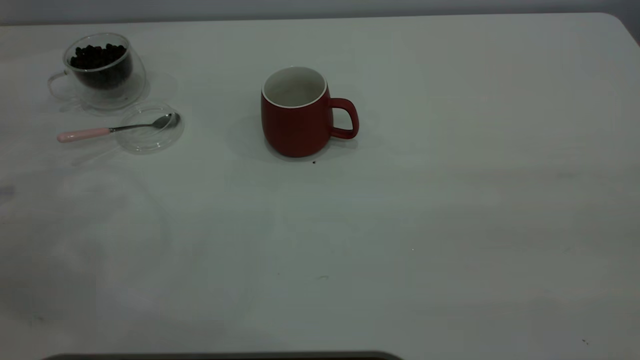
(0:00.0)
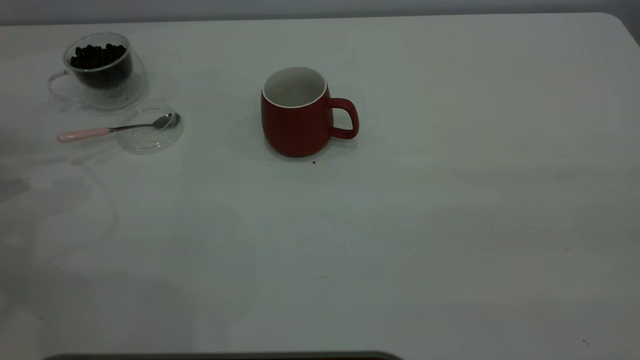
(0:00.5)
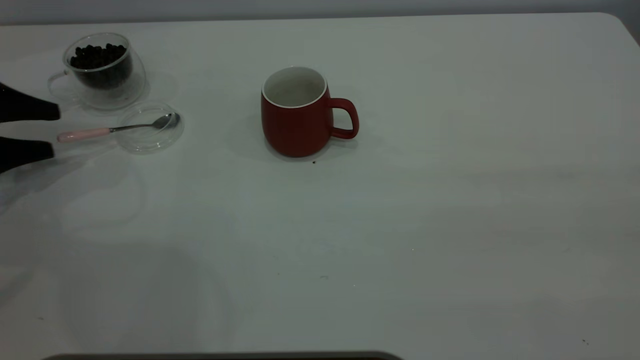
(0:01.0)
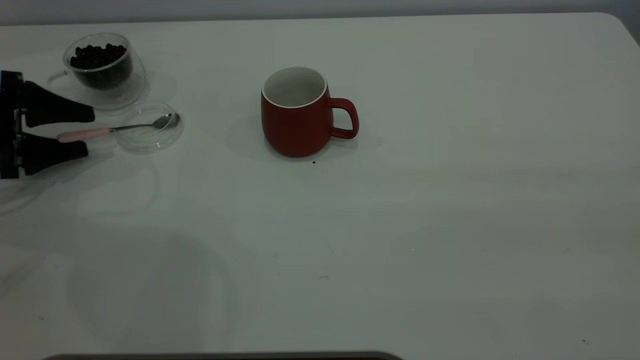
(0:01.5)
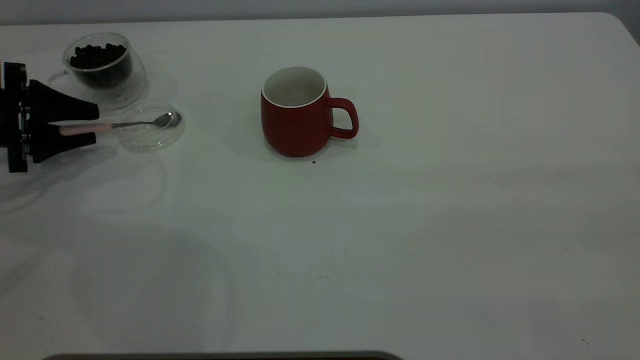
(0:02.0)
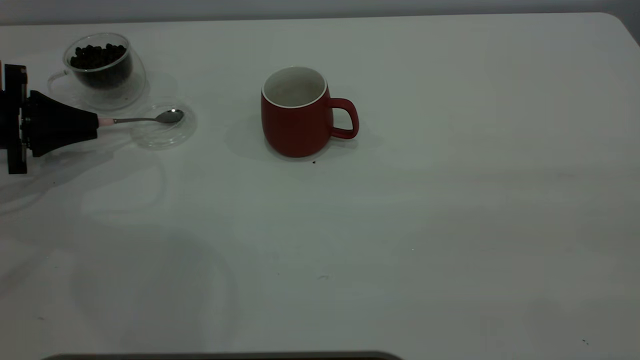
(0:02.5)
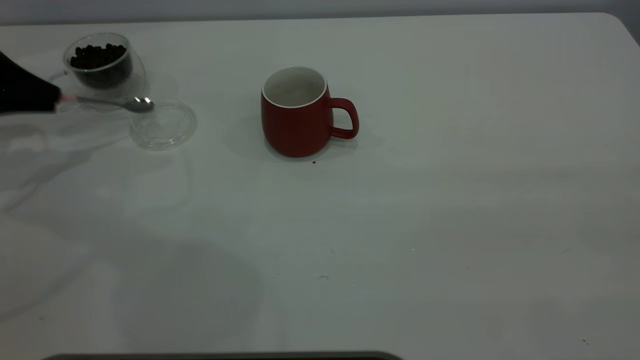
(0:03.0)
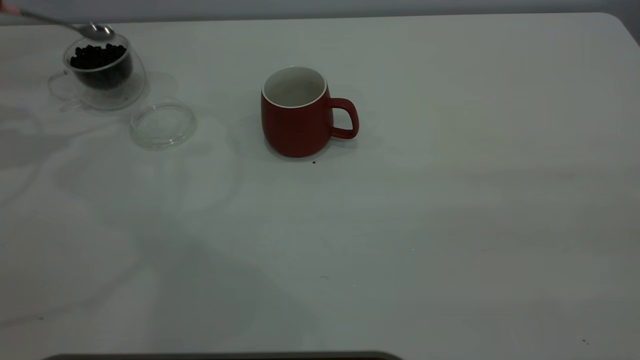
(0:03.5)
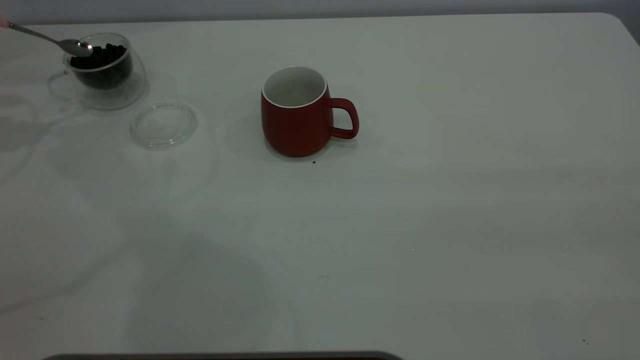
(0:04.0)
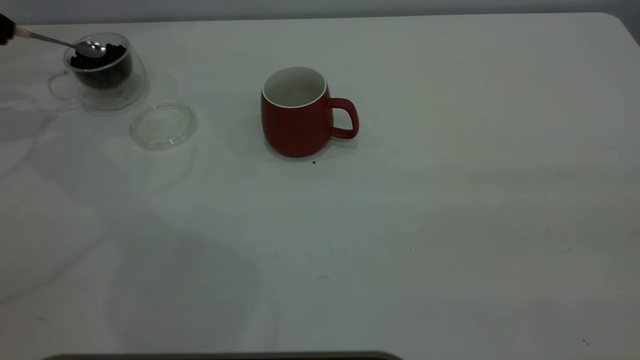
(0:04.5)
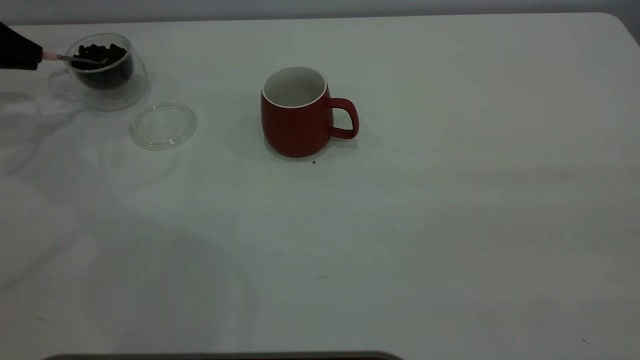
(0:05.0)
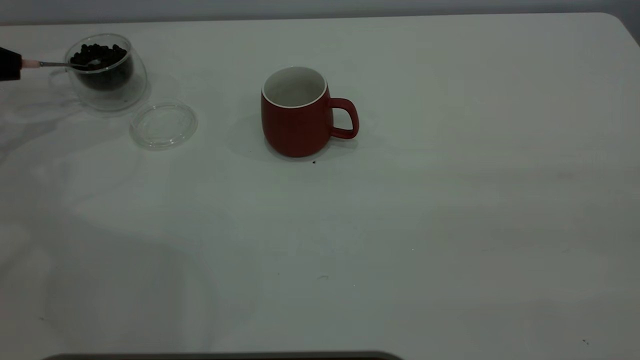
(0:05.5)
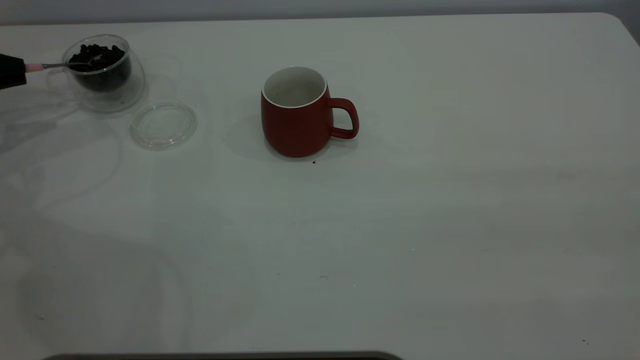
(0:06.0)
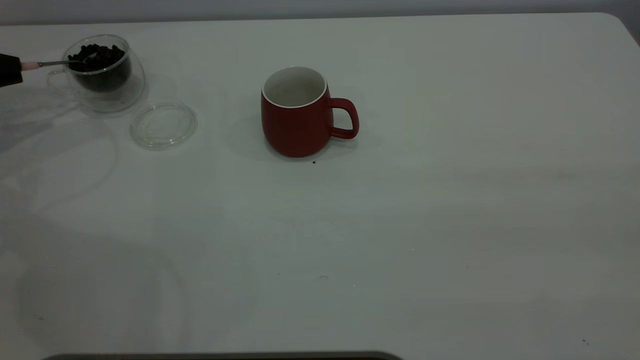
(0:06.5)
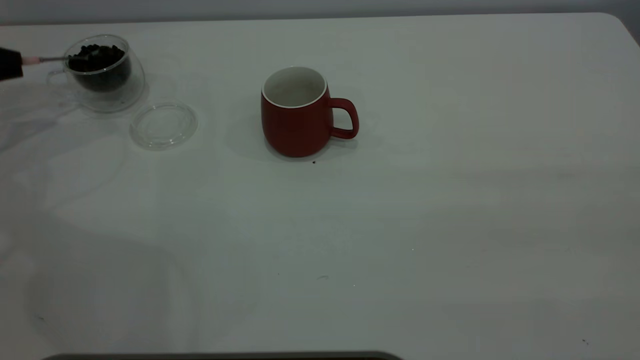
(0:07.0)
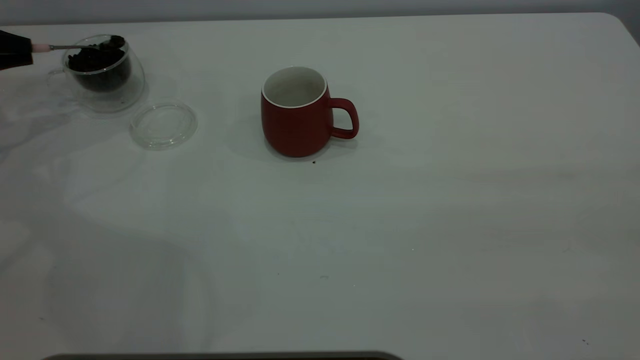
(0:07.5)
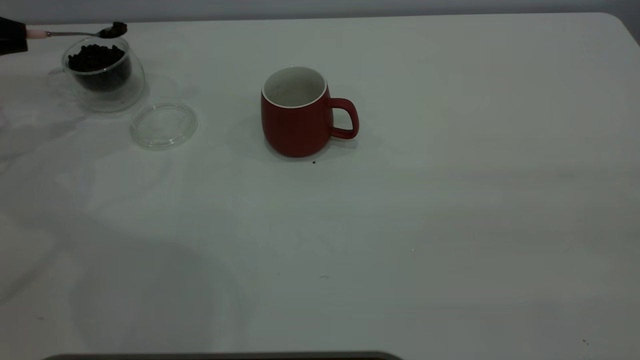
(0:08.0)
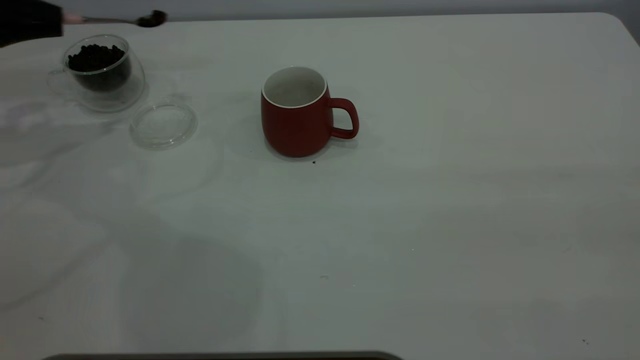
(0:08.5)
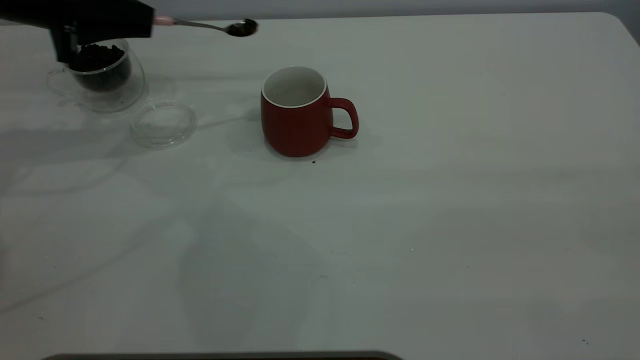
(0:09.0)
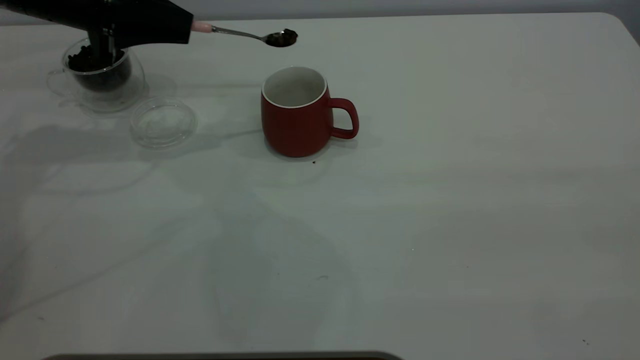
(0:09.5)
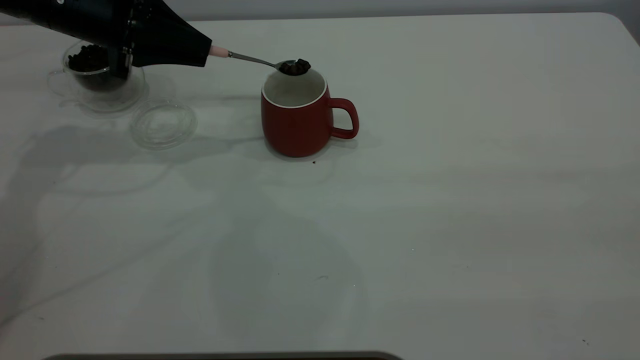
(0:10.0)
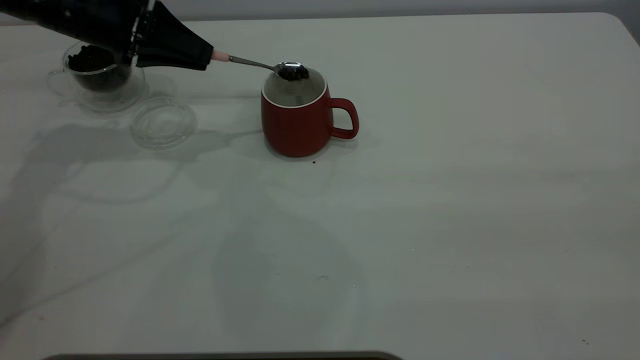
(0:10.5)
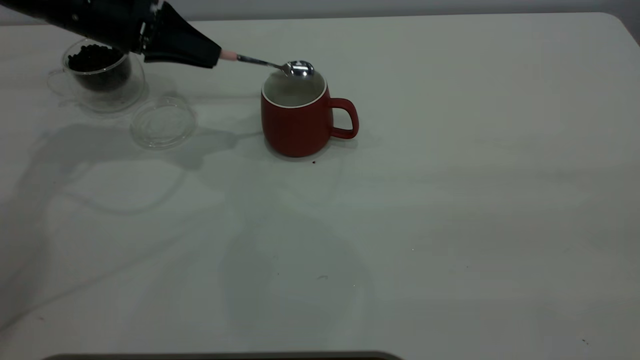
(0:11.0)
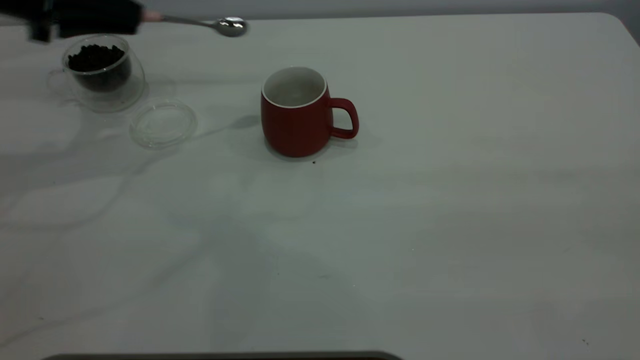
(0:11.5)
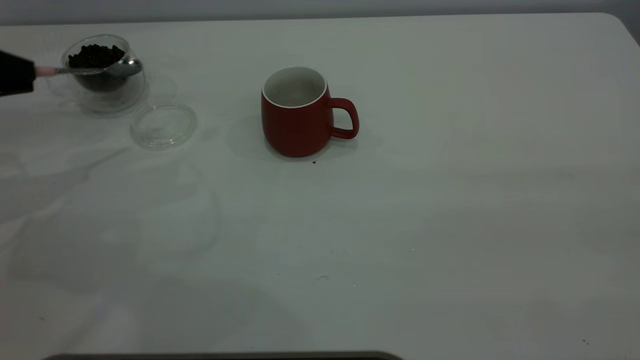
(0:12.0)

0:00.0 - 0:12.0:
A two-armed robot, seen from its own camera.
Task of the whole recording: the right gripper place the red cup in the center of the table, the left gripper take the pink spoon from the cup lid and scoop out the coffee beans from the coffee cup and put them into the red cup, the left gripper put the spoon back into the cup lid.
Step, 0:00.0 - 0:03.0: Pick up the spoon.
Step, 0:03.5 - 0:11.0: Scoop a spoonful of beans into the cup.
0:00.0 - 0:02.0: The left gripper moves downward, forward and to the right, some 15 cm, and closes up.
0:02.0 - 0:04.0: The left gripper goes about 15 cm upward, and closes up.
0:04.0 - 0:06.0: The left gripper heads downward, covering some 15 cm.
0:06.0 - 0:08.0: The left gripper heads upward, covering approximately 5 cm.
0:08.0 - 0:10.0: The left gripper travels to the right by about 20 cm.
0:10.0 - 0:12.0: The left gripper is displaced to the left and backward by some 20 cm.

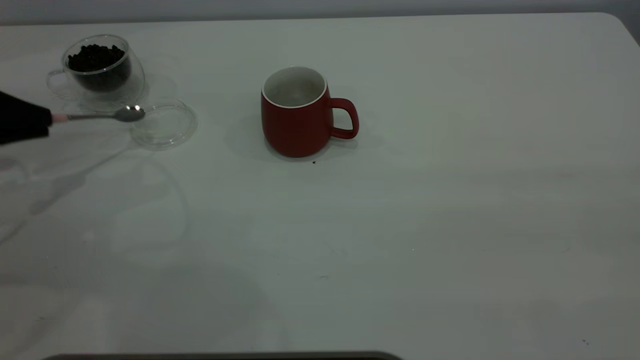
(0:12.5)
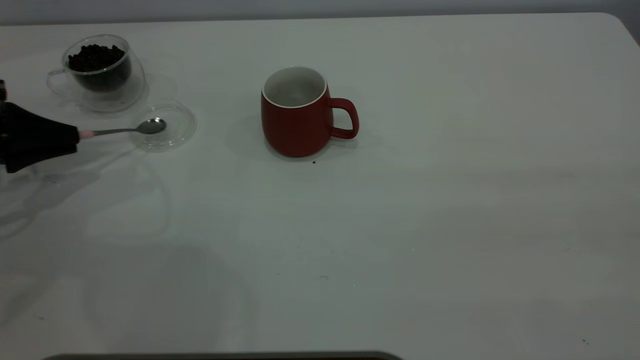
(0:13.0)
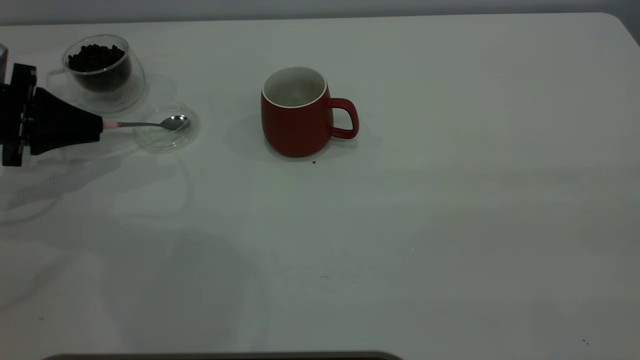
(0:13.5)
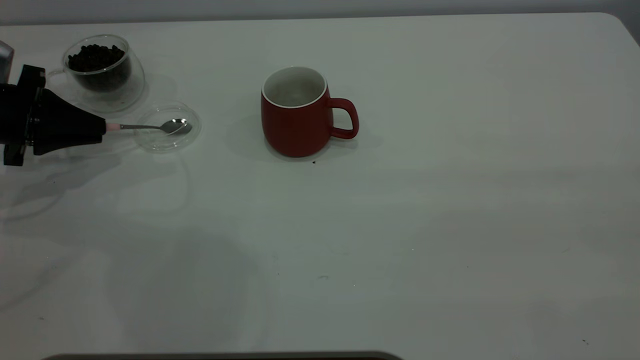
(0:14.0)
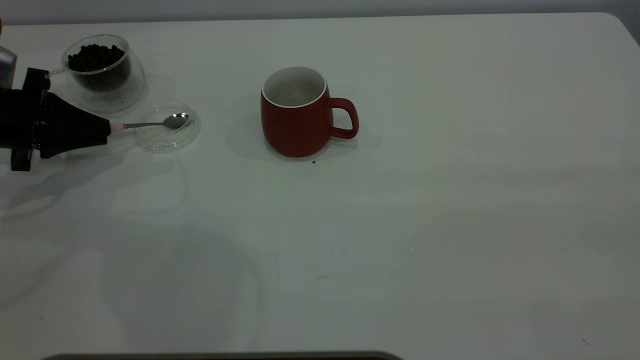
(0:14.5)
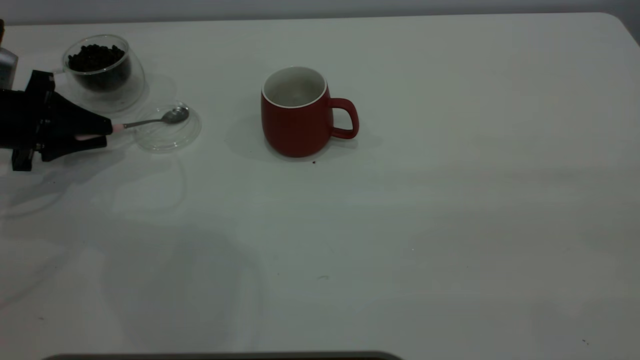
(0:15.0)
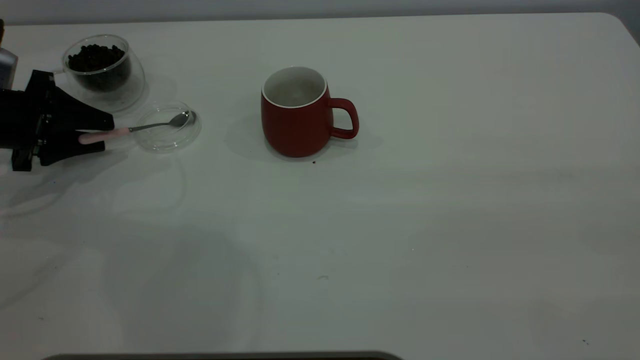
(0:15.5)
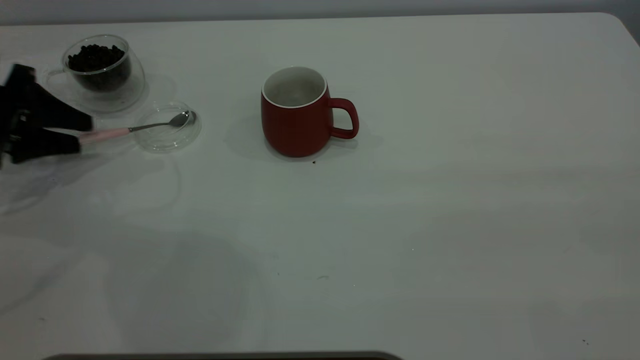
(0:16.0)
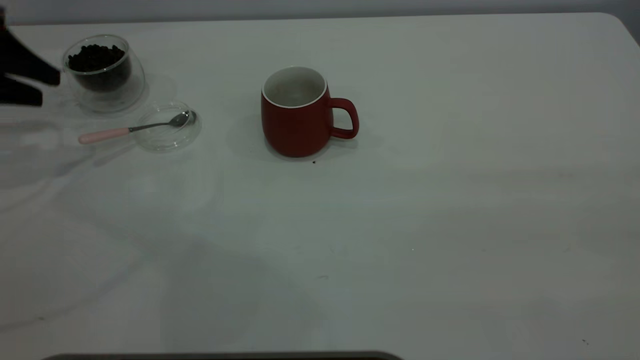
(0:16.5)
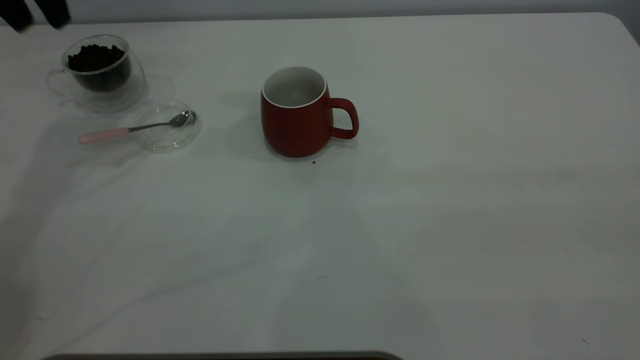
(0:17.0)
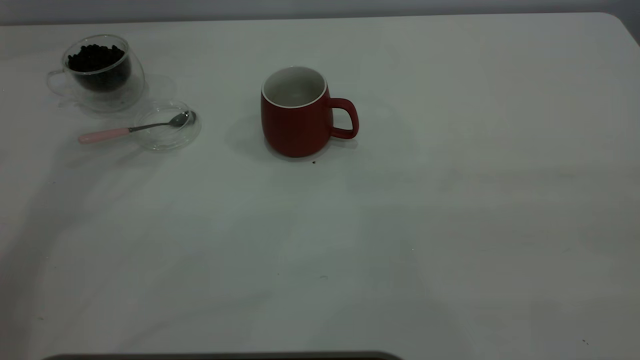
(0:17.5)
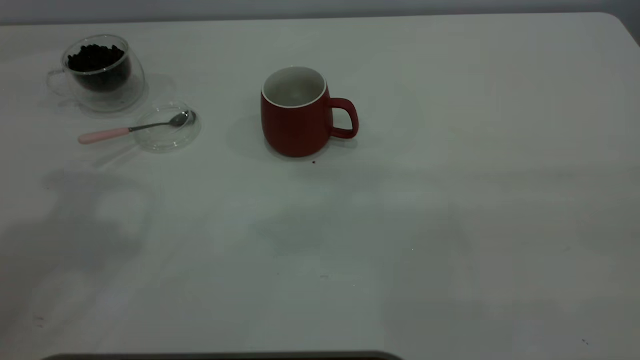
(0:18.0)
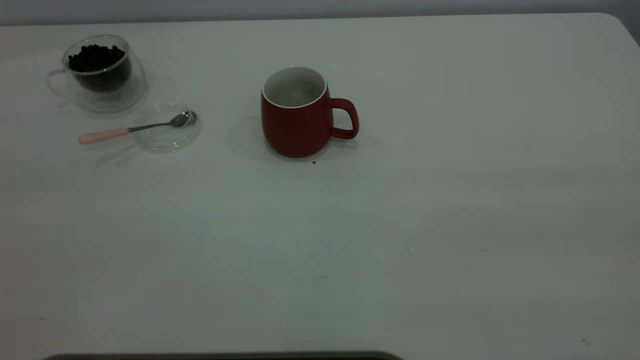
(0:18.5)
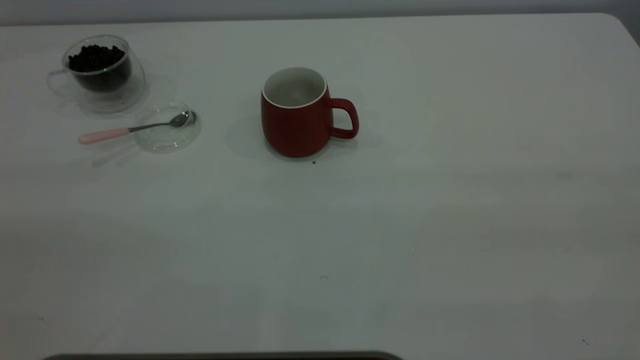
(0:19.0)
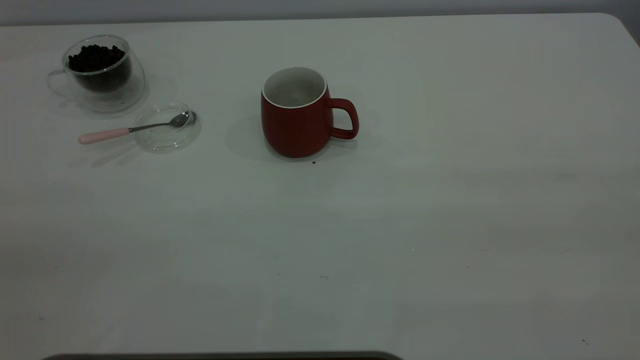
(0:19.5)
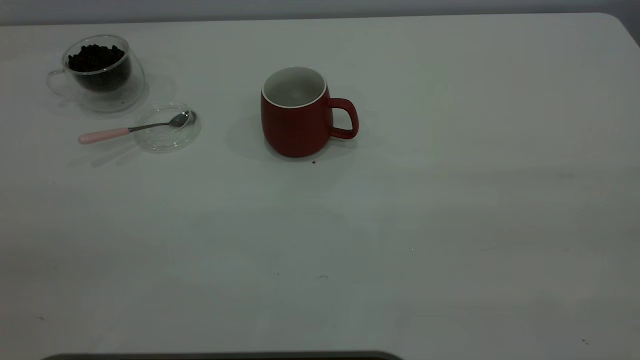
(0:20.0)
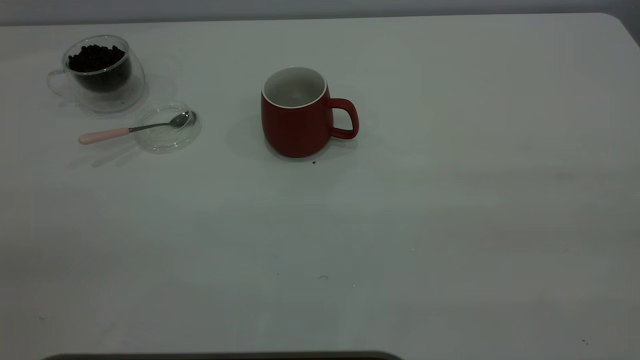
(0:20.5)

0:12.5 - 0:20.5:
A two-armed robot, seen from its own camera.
Task of the whole recording: the right gripper place the red cup in the center of the table, the left gripper take the pink spoon from the cup lid and scoop out the coffee beans from the coffee cup and put them into the red cup, the left gripper put the spoon back into the cup lid.
Step, 0:12.5 - 0:16.5: Place the spoon back in its original place.
0:12.5 - 0:14.5: The left gripper shifts approximately 5 cm forward.
0:14.5 - 0:16.5: The left gripper moves upward, approximately 10 cm, and opens.
0:16.5 - 0:18.5: The left gripper goes about 40 cm backward and upward.
